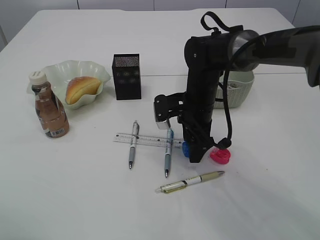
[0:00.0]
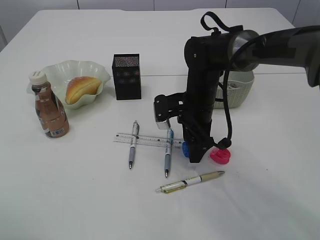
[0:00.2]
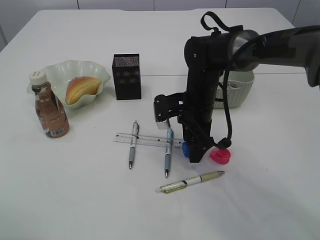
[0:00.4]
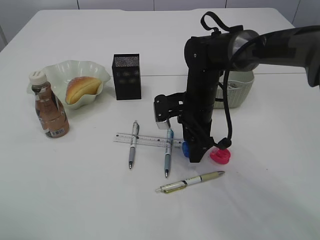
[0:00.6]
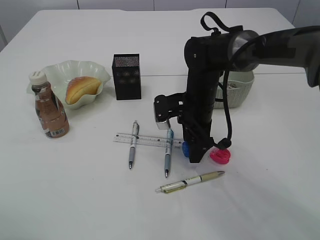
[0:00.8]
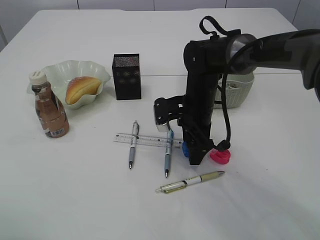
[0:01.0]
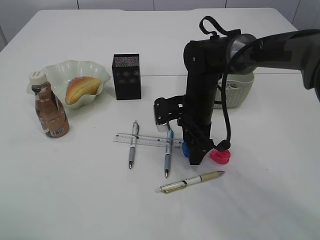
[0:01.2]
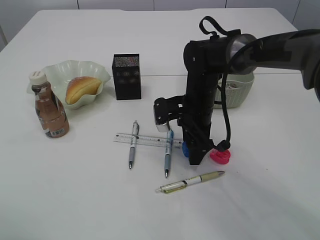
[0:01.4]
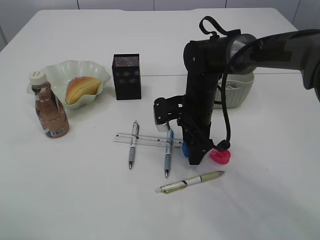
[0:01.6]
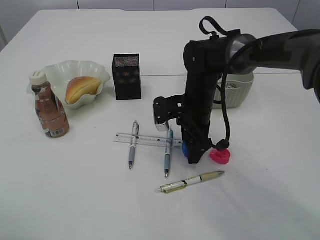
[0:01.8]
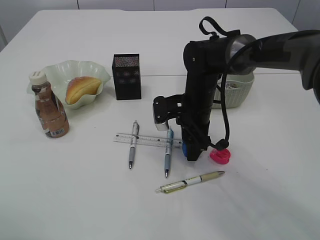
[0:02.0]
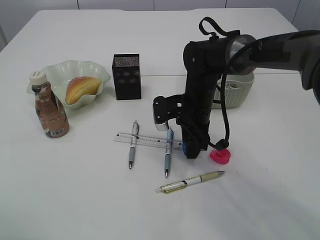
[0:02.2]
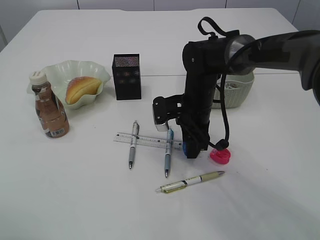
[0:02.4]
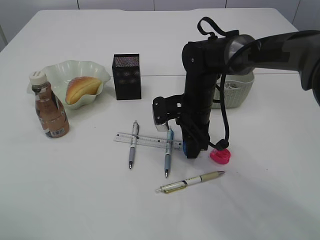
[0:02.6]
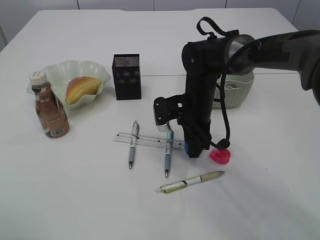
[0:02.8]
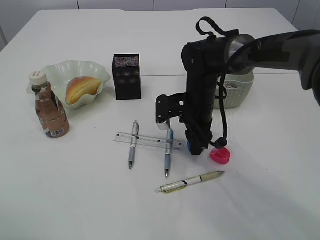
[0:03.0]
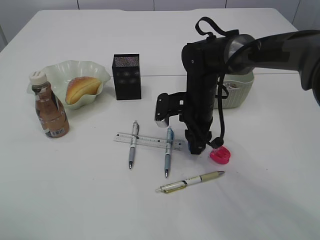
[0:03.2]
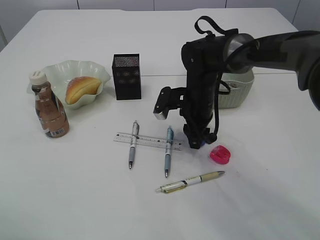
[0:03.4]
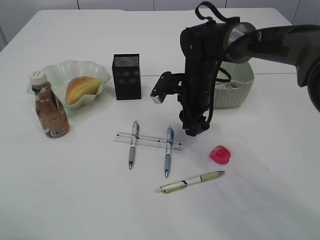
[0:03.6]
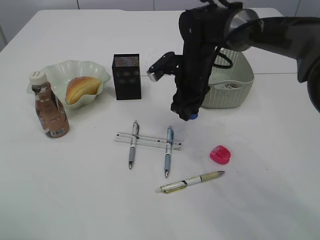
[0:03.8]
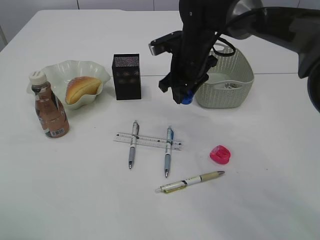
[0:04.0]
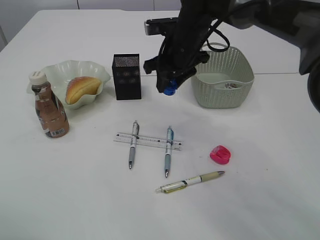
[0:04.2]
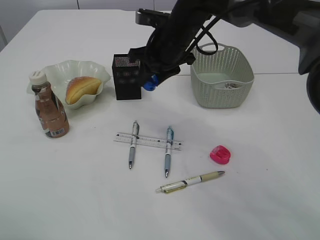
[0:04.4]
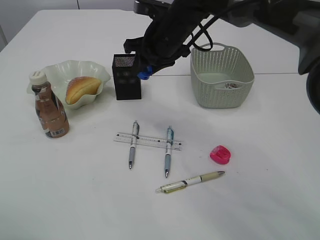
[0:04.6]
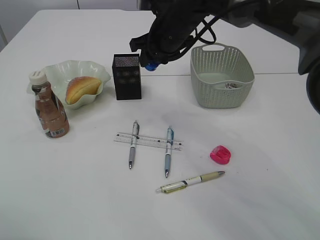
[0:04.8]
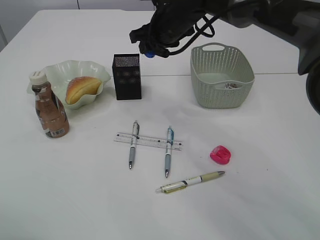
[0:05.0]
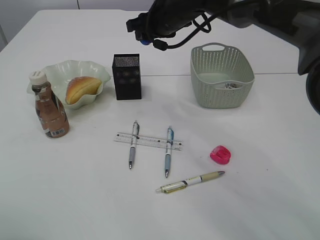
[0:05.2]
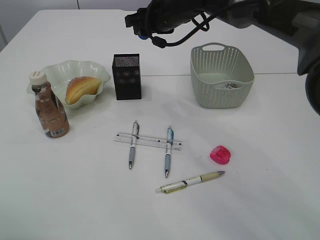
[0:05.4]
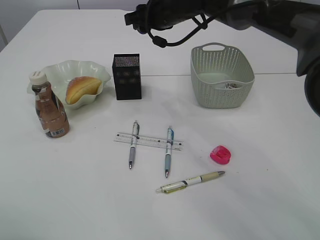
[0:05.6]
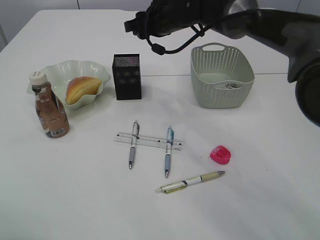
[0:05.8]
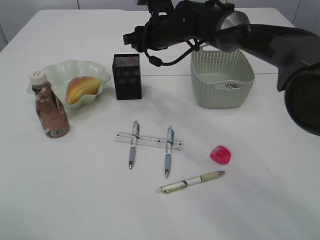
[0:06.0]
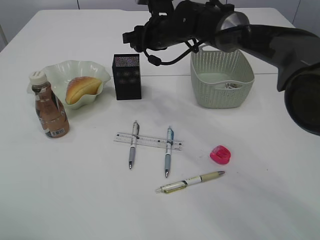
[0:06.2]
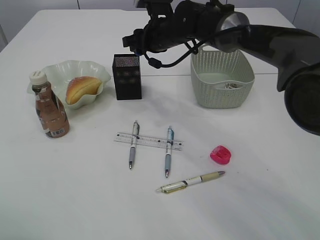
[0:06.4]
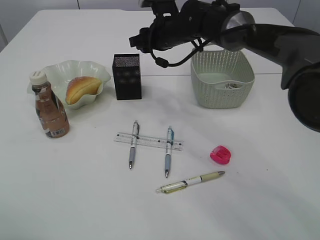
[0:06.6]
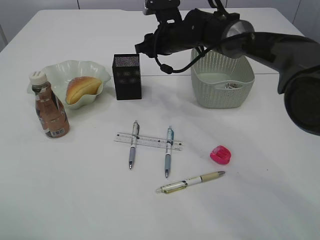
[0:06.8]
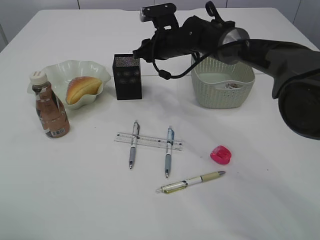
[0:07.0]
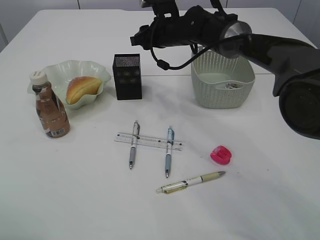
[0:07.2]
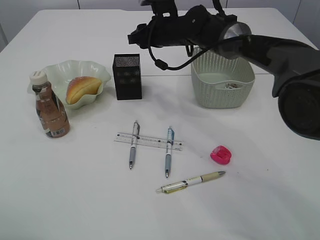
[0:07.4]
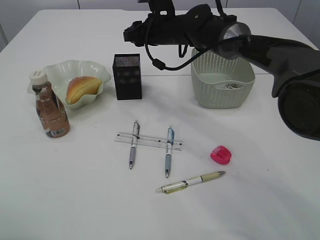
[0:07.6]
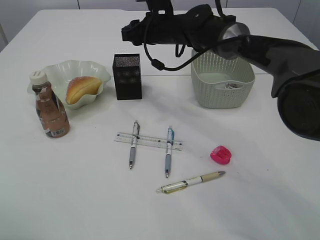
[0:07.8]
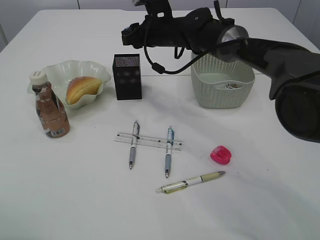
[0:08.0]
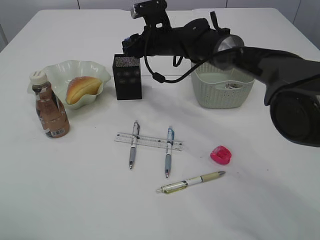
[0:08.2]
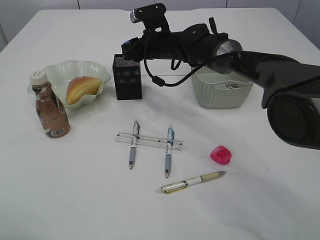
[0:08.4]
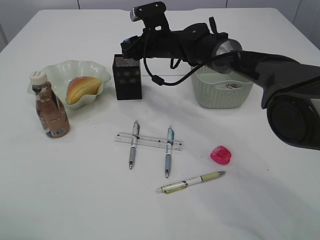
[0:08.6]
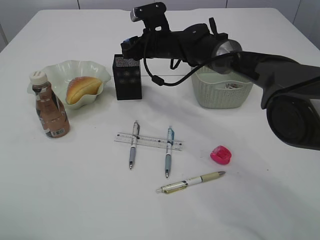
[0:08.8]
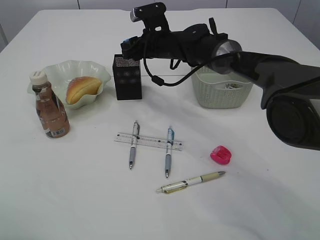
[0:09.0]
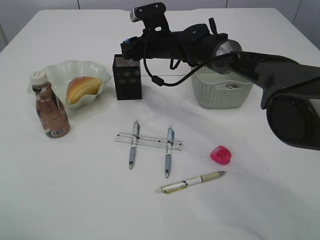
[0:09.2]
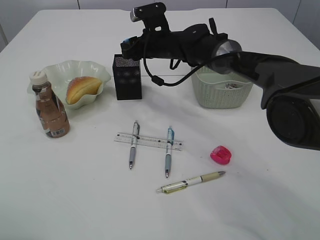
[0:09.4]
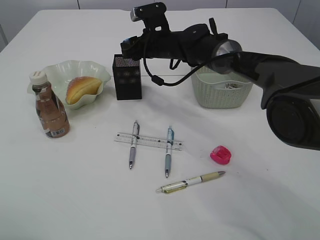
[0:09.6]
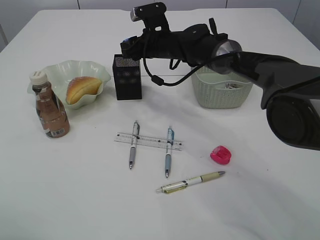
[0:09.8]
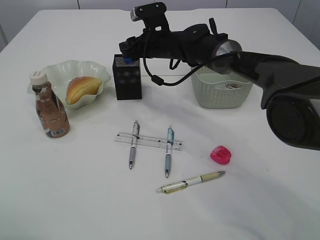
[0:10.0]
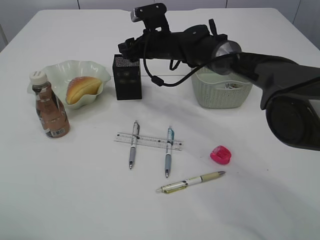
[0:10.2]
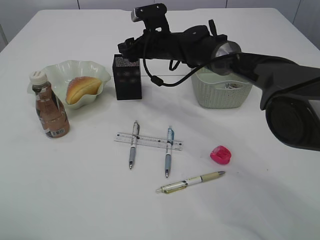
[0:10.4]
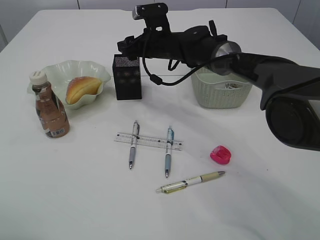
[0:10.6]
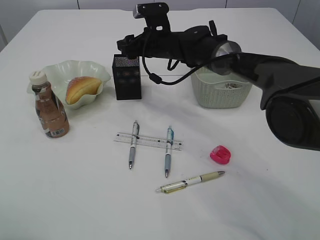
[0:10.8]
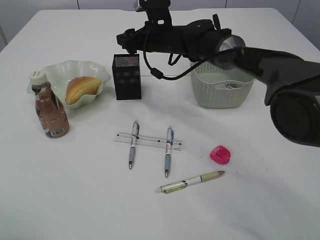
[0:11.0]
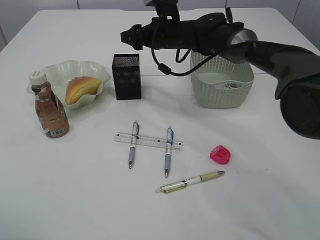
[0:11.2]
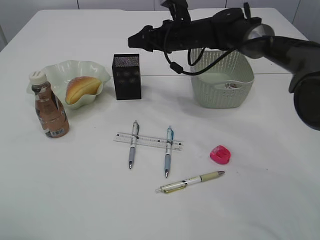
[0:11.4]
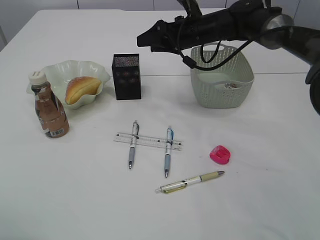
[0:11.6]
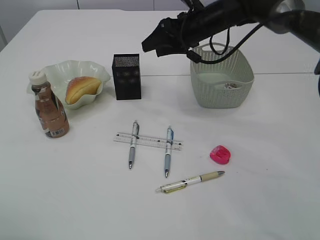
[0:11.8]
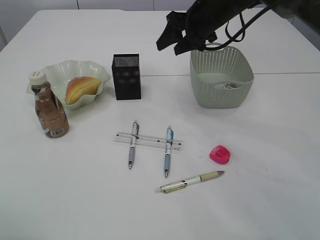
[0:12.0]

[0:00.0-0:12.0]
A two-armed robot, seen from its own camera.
Step, 0:00.0 to 0:03.8: Pick up the blue pencil sharpener.
Step, 0:04.0 to 0:11.4: Place the blue pencil sharpener into the pen holder.
0:00.0 to 0:01.6: Neither gripper changes place.
0:01.6 to 0:03.0: The right gripper closes up.
0:03.0 to 0:04.4: The right gripper travels upward by some 10 cm.
0:04.4 to 0:06.0: The right gripper shifts roughly 5 cm forward.
0:06.0 to 0:07.6: The grippers make only small movements.
0:07.6 to 0:09.0: The grippers move only a little.
0:09.0 to 0:10.4: The right gripper opens.
0:10.4 to 0:12.0: The right gripper travels to the right and upward by about 15 cm.

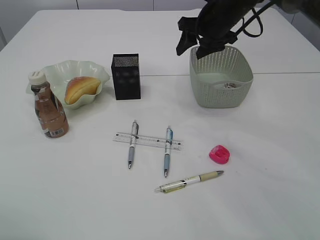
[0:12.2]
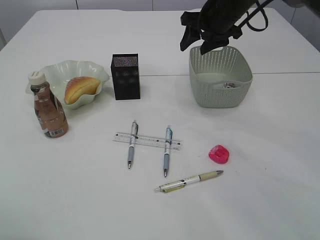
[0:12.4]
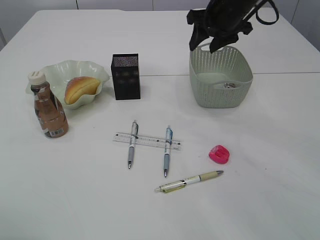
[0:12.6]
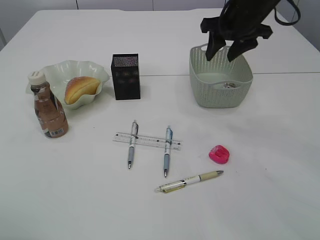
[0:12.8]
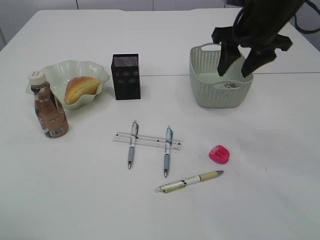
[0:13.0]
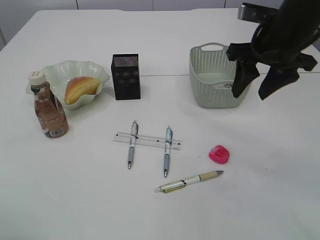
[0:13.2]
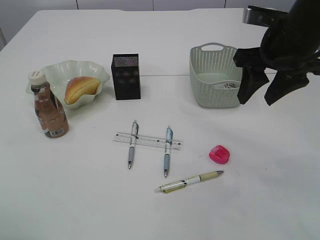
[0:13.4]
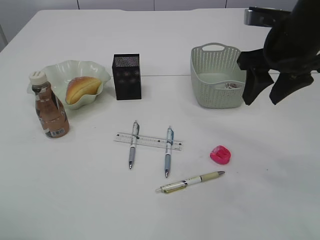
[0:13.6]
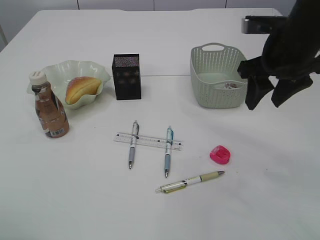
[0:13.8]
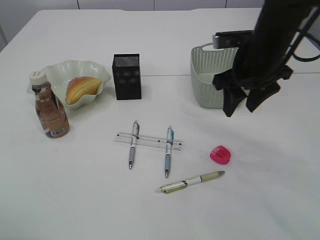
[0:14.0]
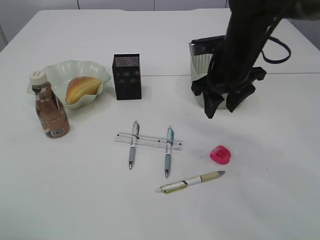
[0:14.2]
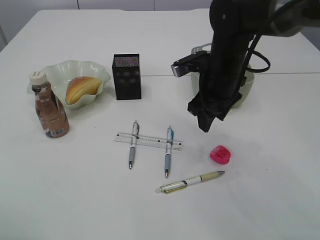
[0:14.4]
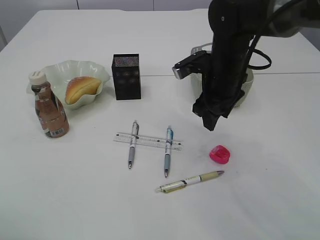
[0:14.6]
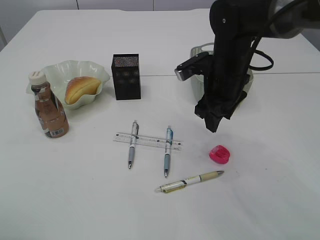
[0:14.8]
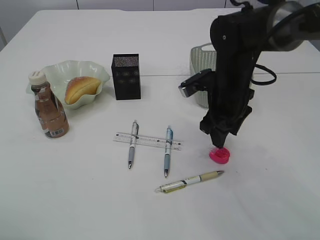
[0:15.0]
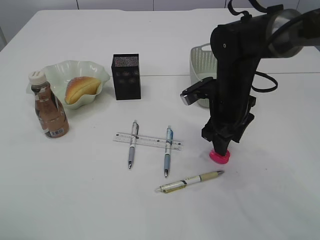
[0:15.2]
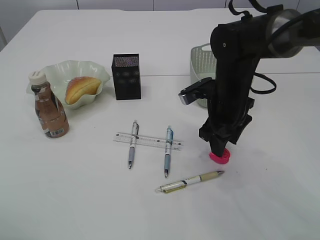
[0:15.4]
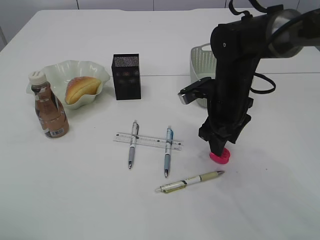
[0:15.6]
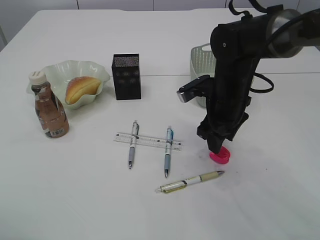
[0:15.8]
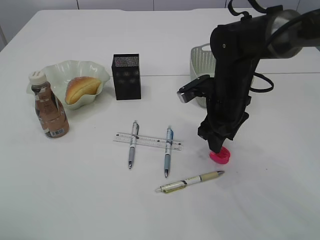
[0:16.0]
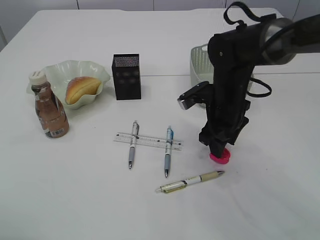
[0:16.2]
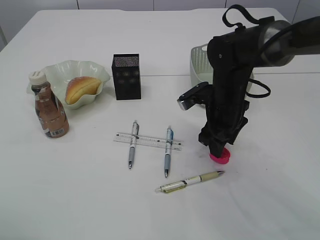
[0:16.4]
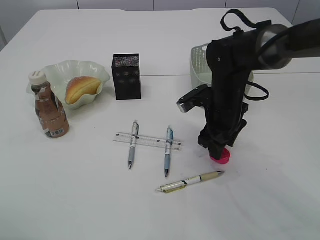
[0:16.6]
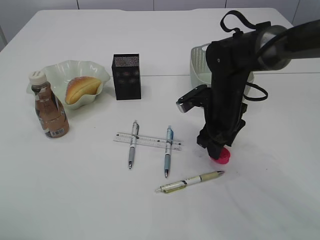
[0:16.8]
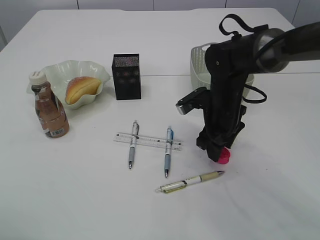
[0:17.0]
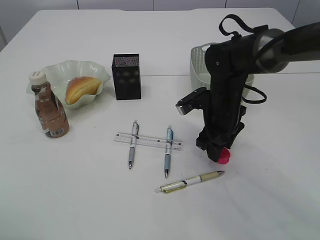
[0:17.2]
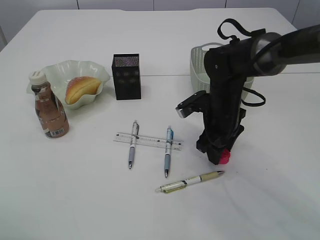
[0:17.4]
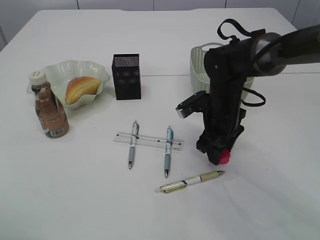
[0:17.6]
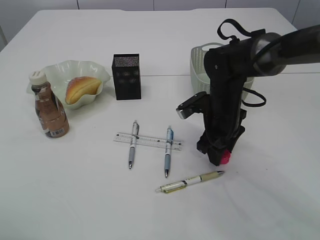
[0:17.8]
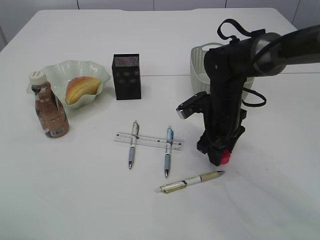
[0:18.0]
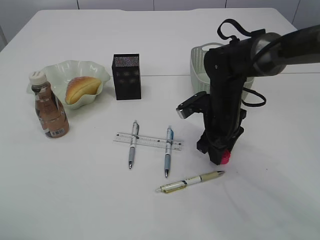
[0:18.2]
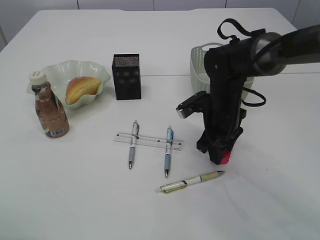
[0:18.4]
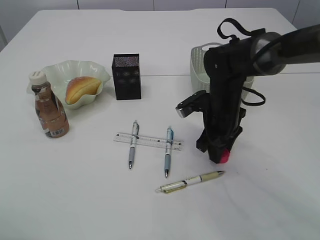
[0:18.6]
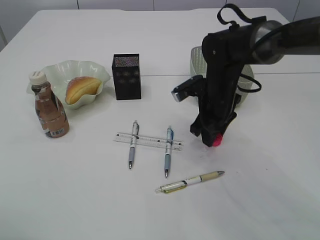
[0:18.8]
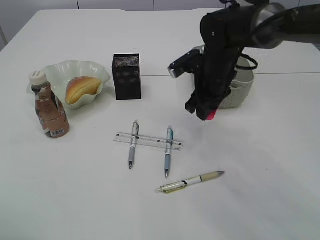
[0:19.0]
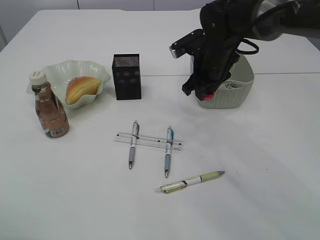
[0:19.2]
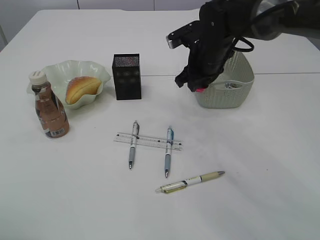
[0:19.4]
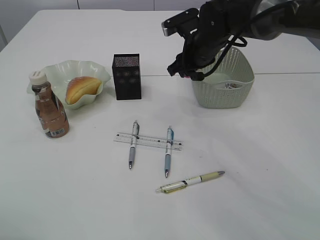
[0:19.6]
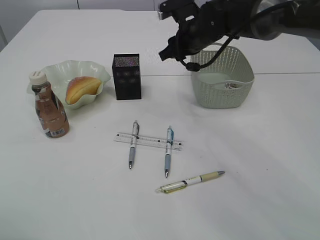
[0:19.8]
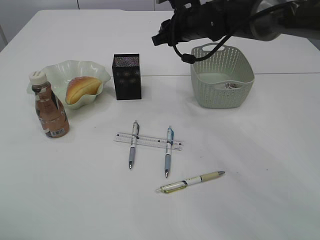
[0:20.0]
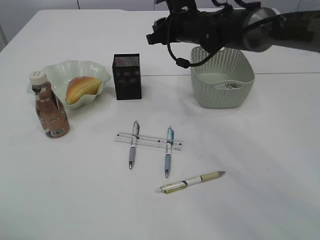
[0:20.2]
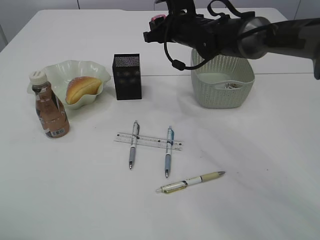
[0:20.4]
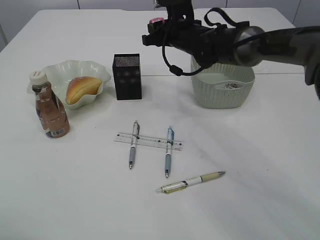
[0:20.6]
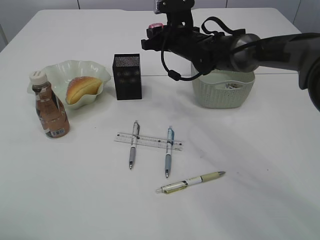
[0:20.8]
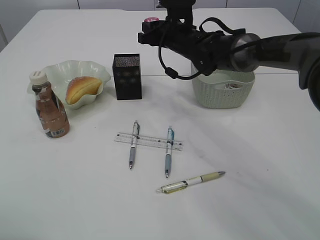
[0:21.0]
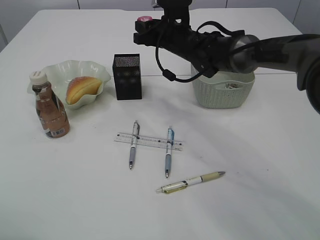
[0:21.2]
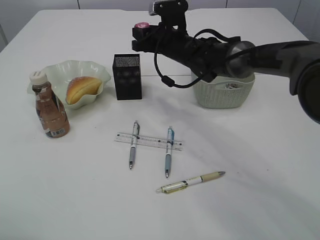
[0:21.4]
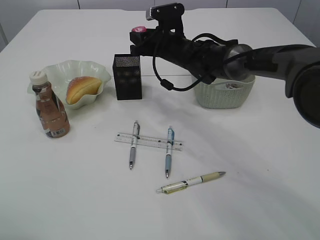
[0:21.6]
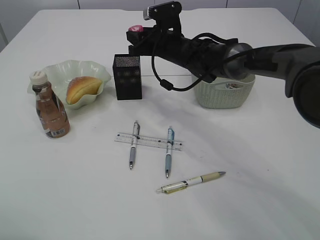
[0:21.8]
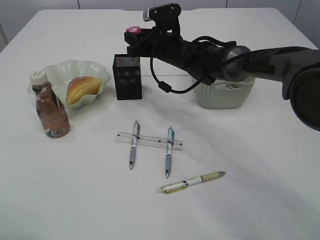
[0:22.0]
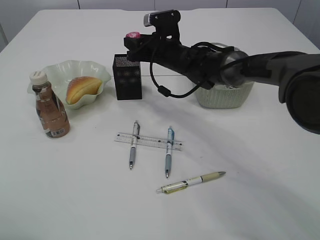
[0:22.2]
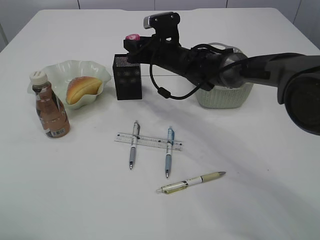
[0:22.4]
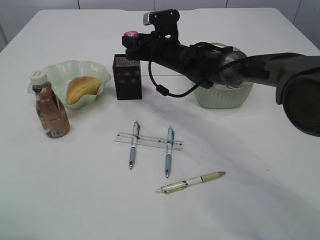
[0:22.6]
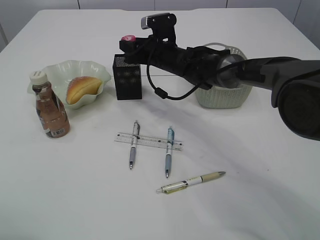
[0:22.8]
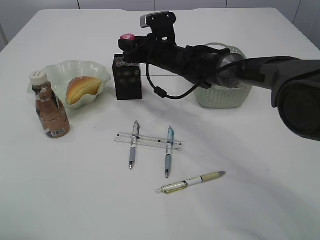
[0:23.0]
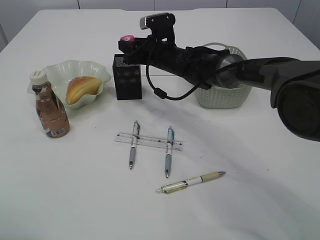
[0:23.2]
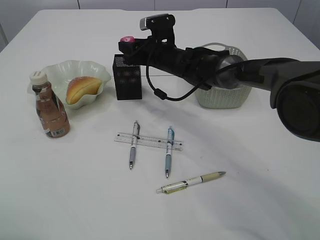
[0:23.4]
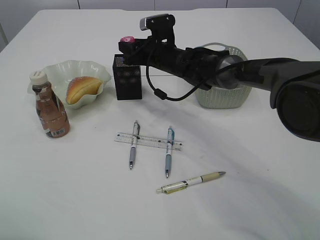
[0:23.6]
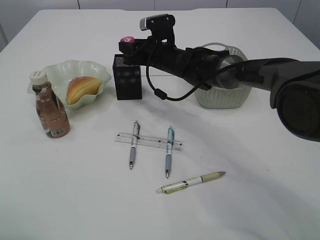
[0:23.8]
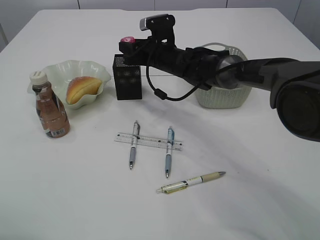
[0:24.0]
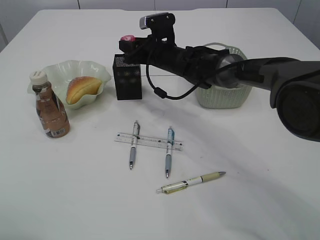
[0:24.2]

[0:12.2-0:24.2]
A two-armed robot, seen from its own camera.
Step, 0:12.2 to 0:19.0: Pick up the red pencil sharpener.
0:12.2 to 0:13.8: The right gripper heads backward, covering roughly 15 cm.
0:13.8 to 0:15.2: The right gripper travels downward and to the left by roughly 15 cm.
0:15.2 to 0:18.2: The grippers move only a little.
0:18.2 to 0:19.8: The right gripper goes approximately 15 cm upward and forward.
0:19.8 to 0:21.2: The right gripper moves roughly 5 cm.
0:21.2 to 0:22.6: There are only small adjustments of the grippers.
0:22.6 to 0:24.2: Neither gripper changes place.
